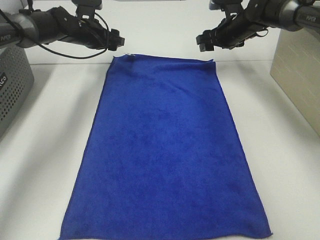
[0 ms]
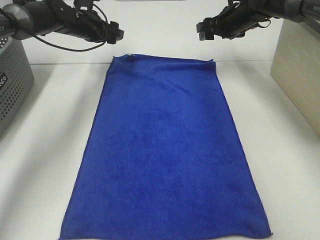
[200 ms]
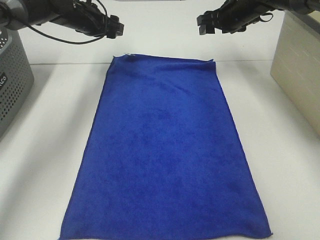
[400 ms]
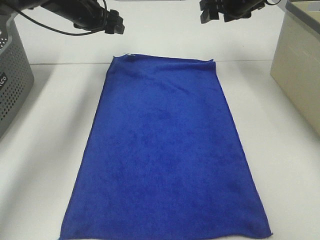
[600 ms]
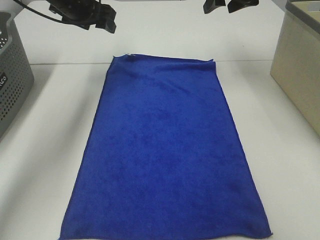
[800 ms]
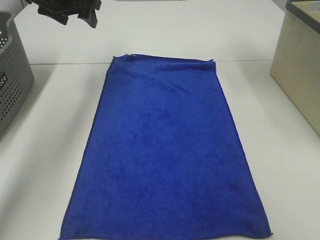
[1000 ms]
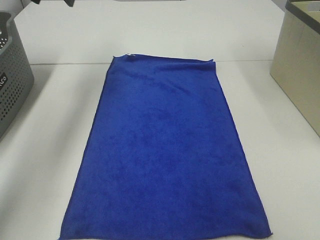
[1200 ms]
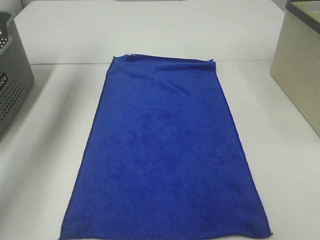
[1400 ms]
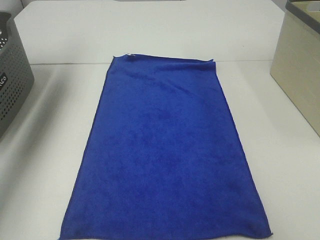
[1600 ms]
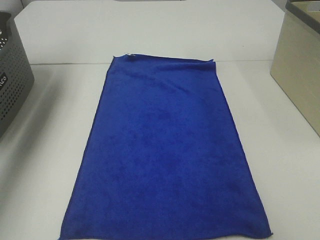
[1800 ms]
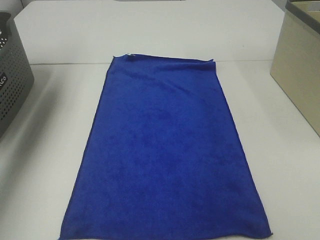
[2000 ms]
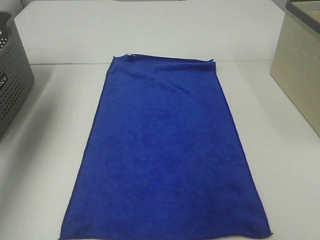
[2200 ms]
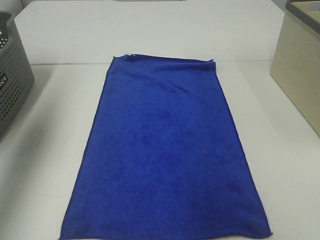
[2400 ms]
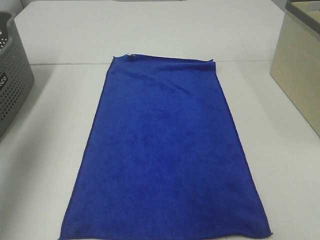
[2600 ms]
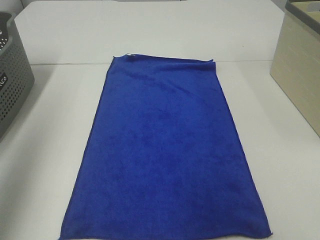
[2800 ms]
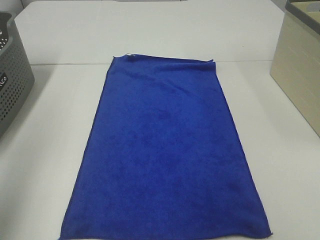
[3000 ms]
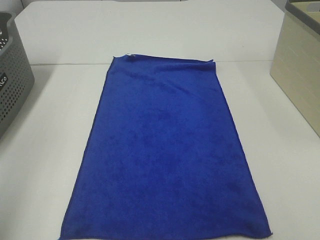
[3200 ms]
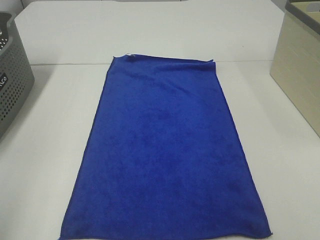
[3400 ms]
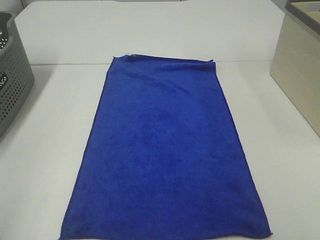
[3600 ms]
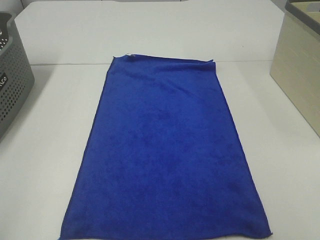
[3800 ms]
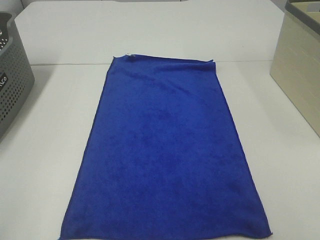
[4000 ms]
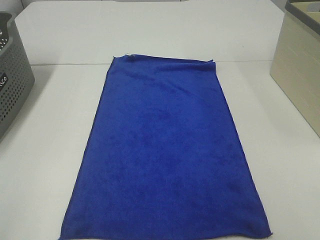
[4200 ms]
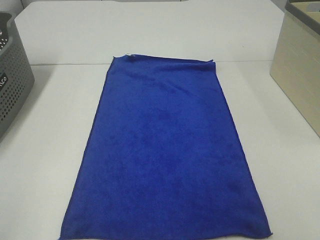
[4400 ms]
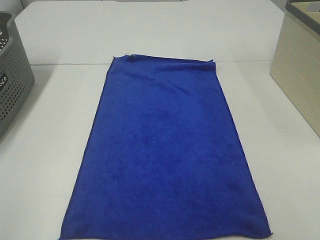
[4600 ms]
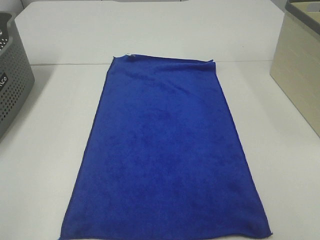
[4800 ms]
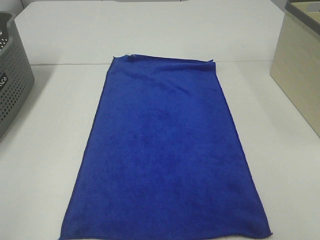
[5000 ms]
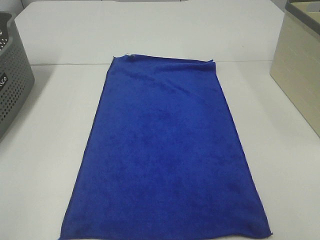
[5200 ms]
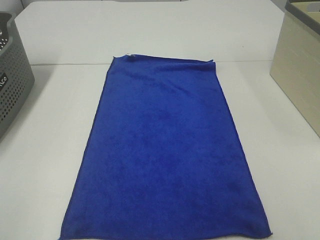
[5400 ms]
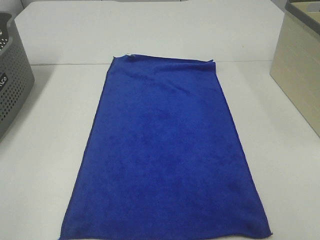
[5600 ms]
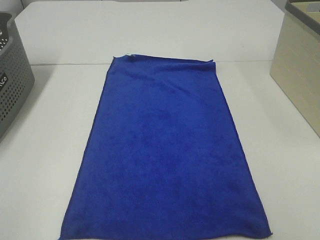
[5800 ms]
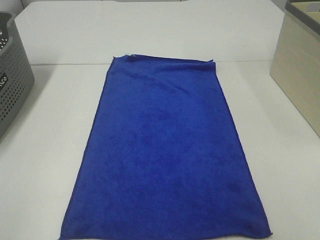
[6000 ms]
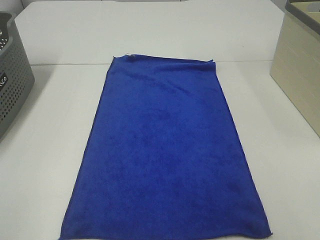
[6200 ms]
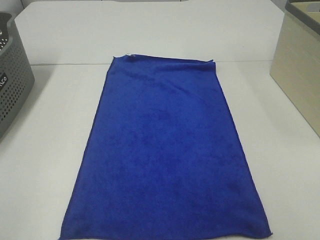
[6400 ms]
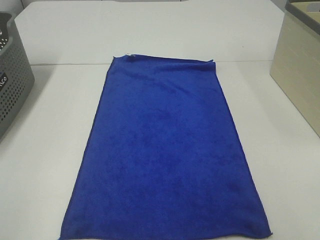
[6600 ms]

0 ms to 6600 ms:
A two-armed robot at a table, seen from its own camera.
Task of the whole recording: Remove the towel and place it.
0 ms to 1600 ms: The left gripper shifts roughly 30 cm upward, to the left and backward. The right gripper goes roughly 30 cm upward and backward.
1600 ms to 3200 ms: The left gripper shifts approximately 35 cm backward.
3200 ms to 5000 ms: The left gripper is displaced backward and downward by about 10 cm.
5000 ms to 6600 ms: Neither gripper changes place.

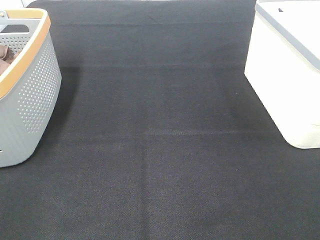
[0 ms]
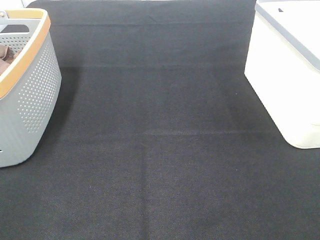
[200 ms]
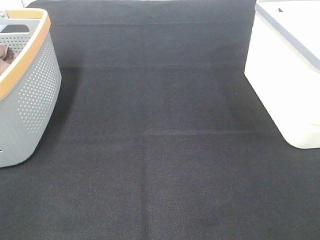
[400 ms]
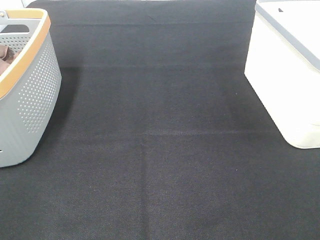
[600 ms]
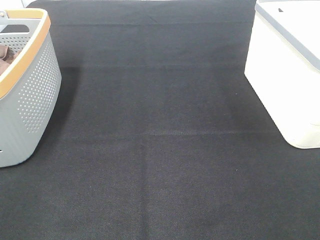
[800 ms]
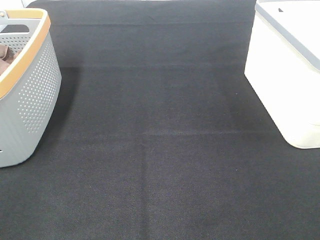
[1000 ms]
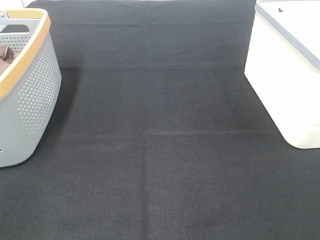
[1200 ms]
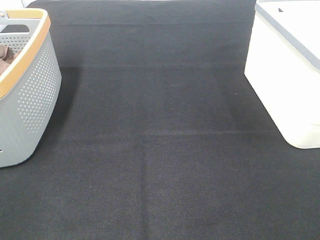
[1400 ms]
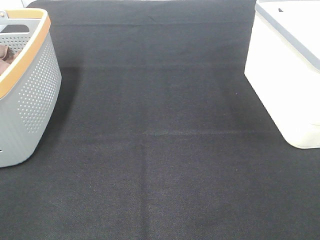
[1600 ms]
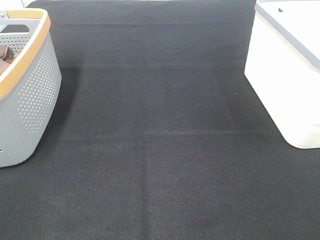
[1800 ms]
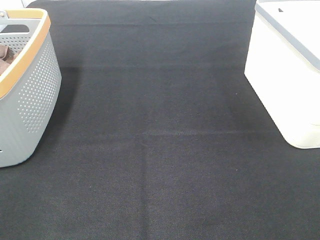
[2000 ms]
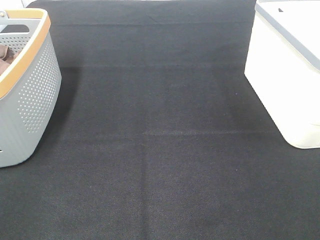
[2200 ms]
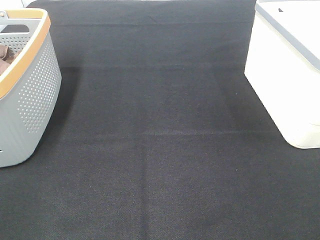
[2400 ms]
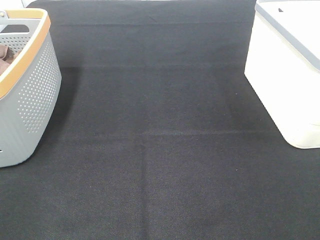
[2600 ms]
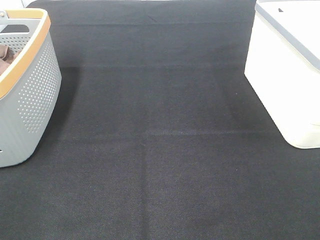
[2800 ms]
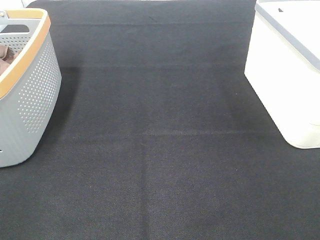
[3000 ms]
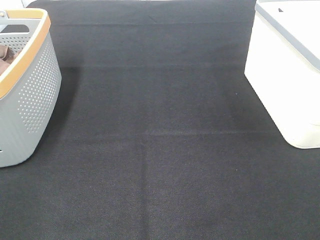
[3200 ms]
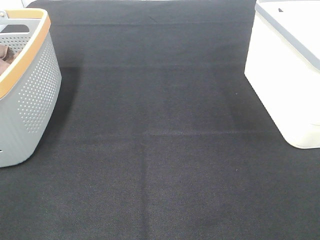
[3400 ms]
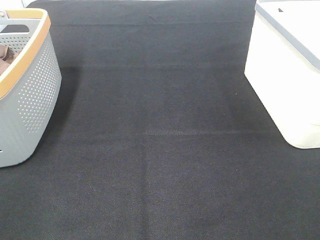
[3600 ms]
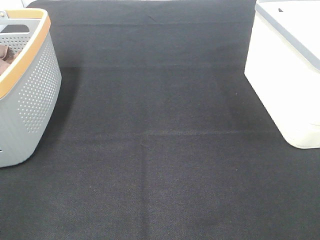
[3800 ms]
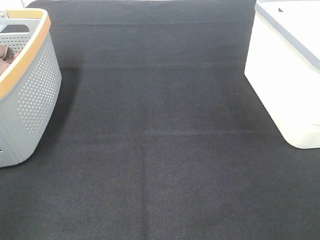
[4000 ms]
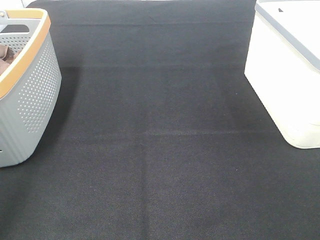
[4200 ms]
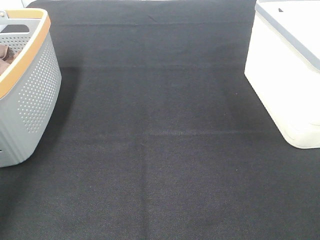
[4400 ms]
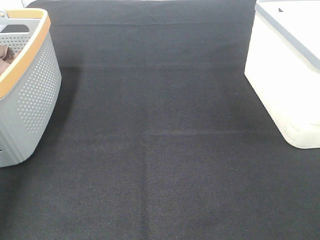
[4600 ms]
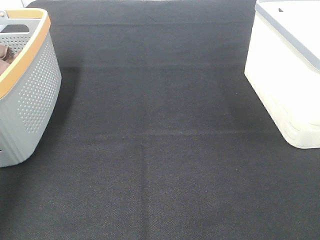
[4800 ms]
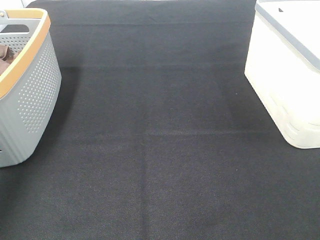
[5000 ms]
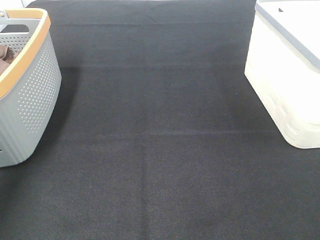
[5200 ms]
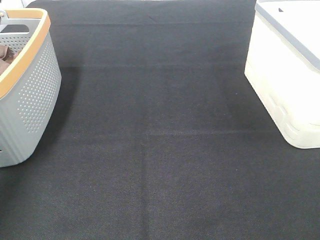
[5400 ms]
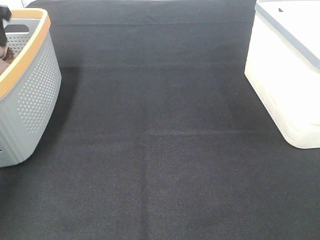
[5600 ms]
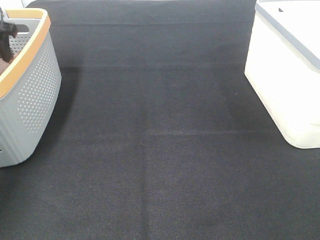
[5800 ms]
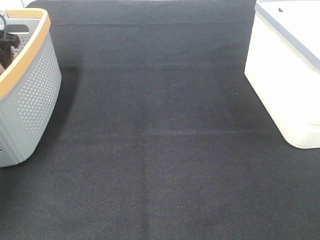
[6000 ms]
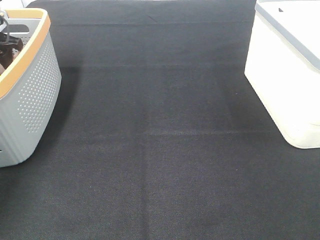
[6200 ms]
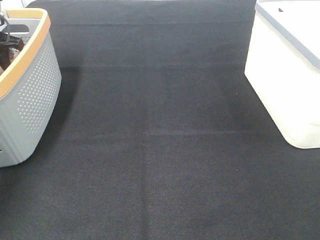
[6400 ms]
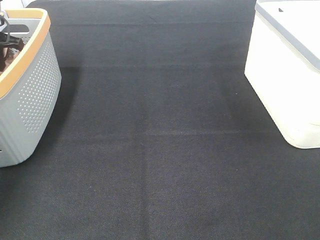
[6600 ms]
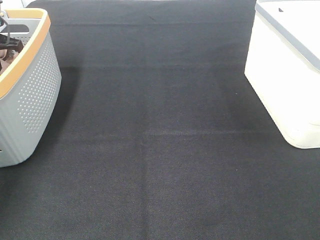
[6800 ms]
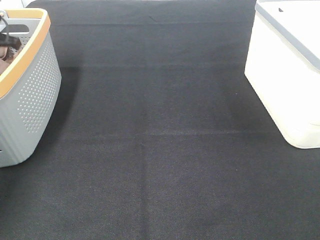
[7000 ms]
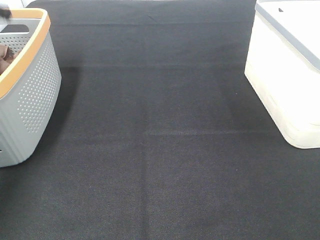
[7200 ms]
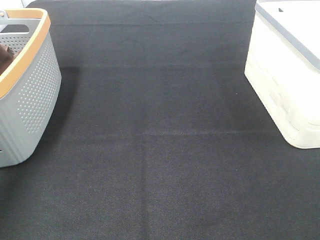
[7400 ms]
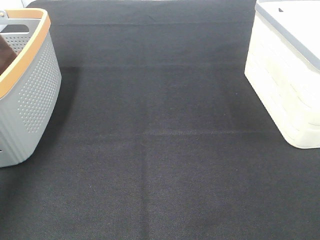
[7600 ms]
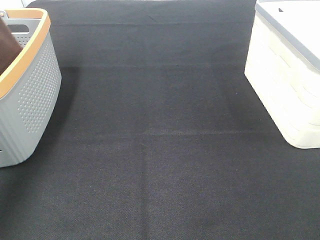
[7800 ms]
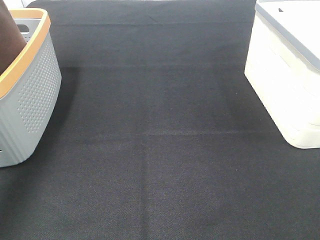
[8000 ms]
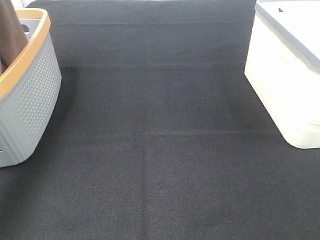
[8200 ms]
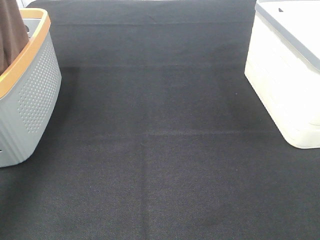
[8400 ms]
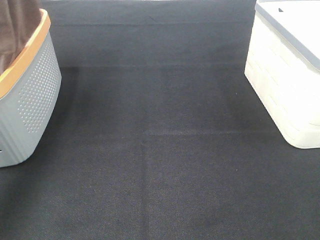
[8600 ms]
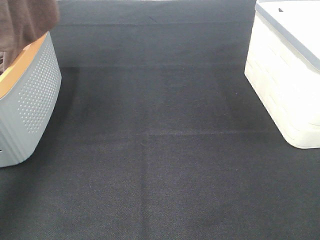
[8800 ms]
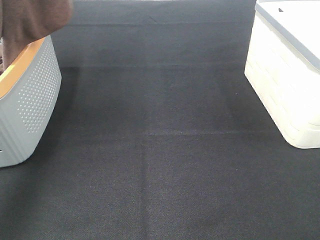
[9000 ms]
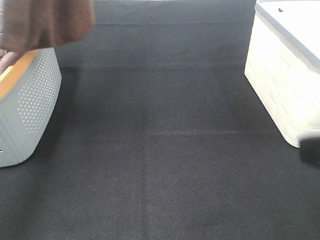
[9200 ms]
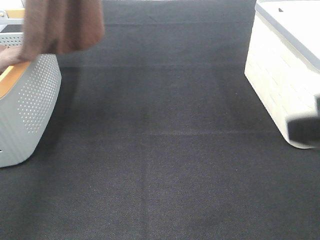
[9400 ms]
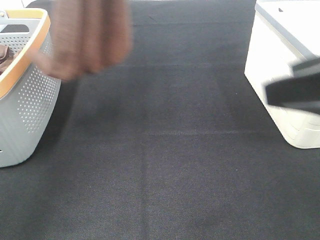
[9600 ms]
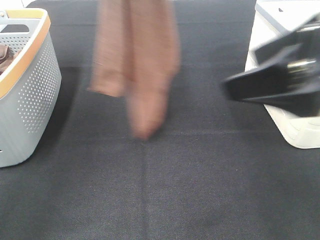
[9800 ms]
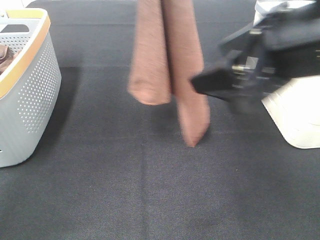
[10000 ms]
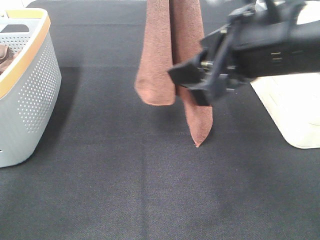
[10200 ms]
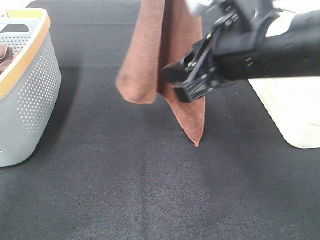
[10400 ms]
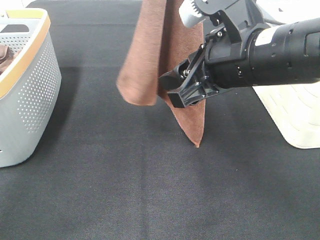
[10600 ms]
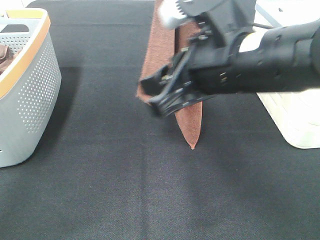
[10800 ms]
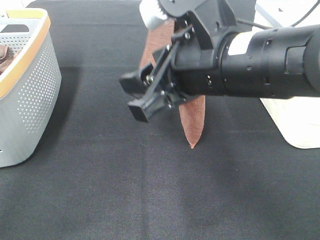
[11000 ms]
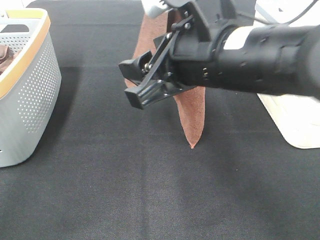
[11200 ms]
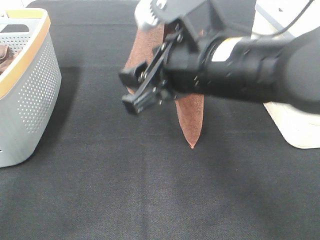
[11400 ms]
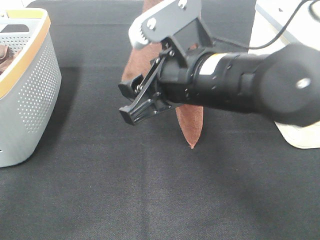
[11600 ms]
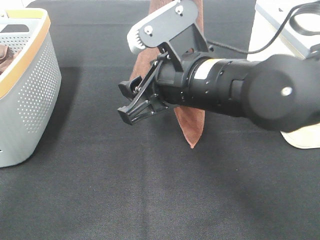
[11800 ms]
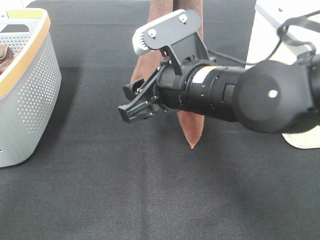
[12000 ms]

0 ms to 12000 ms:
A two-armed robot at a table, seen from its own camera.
Task of the whole recording: Remove the towel and place it.
0 ms to 3000 ms: Both grippers stay put.
3000 ms to 4400 ms: The left gripper shifts approximately 20 cm forward.
4400 ms to 6000 ms: The left gripper is displaced forward by approximately 25 cm.
6000 ms to 7600 ms: The left gripper travels upward and backward by approximately 25 cm, and closes up.
7600 ms to 9000 ms: The left gripper travels upward, to the right and backward by some 15 cm.
9000 ms to 10400 ms: The left gripper moves to the right and downward, roughly 20 cm. Meanwhile the right gripper moves forward and to the left, about 25 cm.
10400 ms to 12000 ms: The right gripper shifts approximately 10 cm downward and to the left.

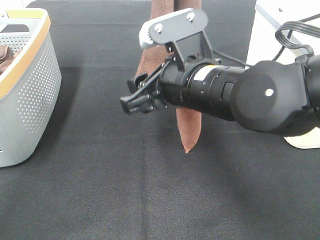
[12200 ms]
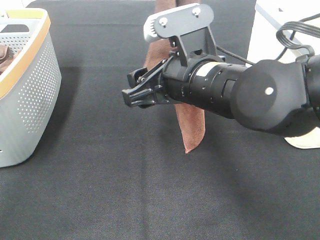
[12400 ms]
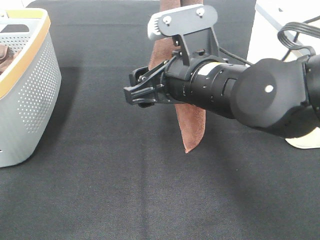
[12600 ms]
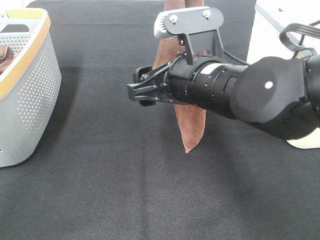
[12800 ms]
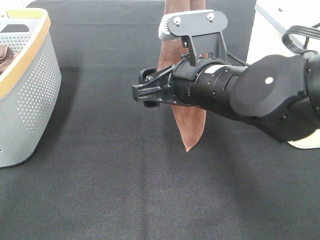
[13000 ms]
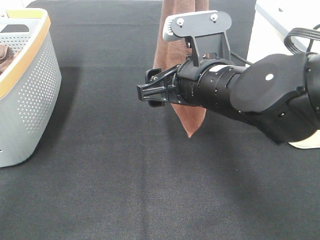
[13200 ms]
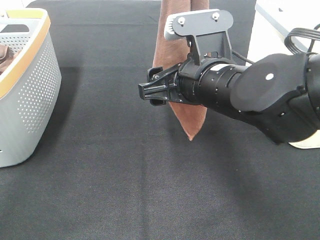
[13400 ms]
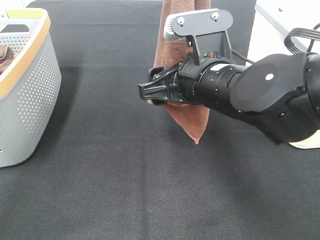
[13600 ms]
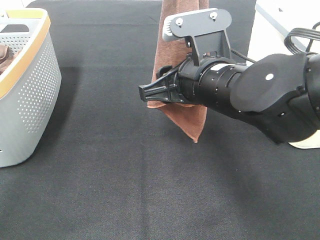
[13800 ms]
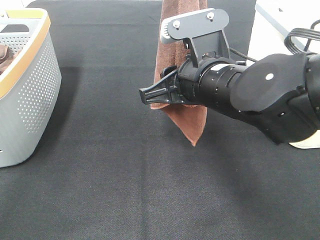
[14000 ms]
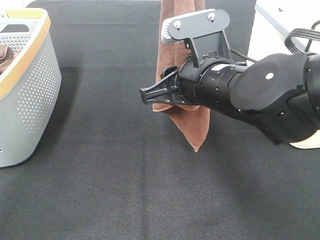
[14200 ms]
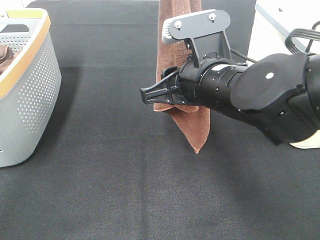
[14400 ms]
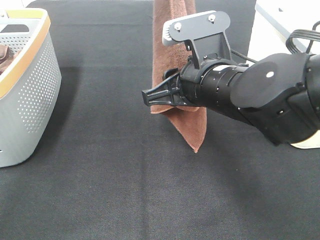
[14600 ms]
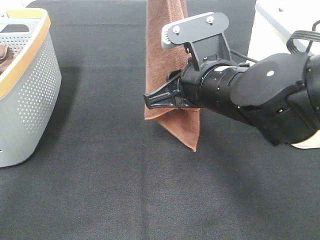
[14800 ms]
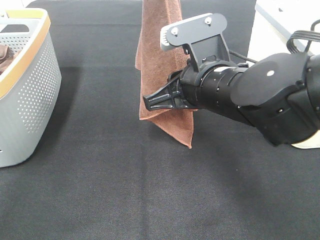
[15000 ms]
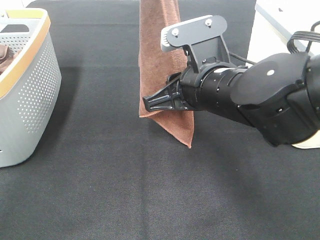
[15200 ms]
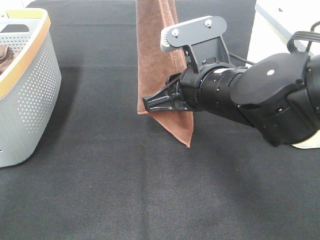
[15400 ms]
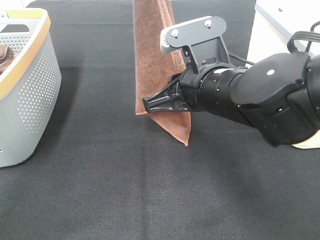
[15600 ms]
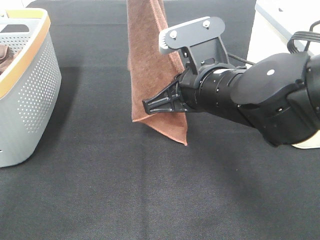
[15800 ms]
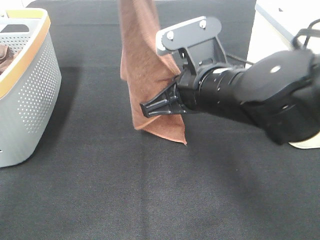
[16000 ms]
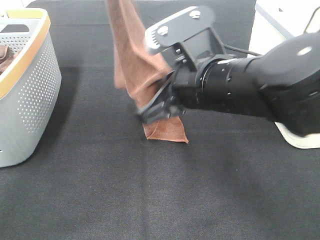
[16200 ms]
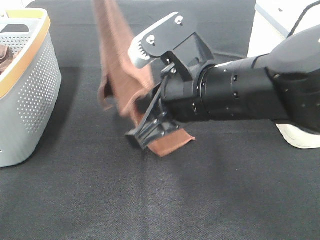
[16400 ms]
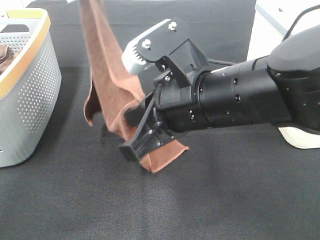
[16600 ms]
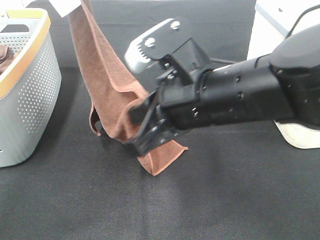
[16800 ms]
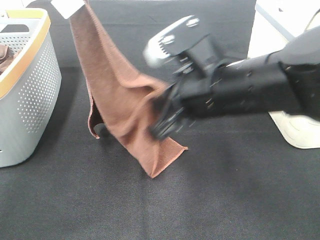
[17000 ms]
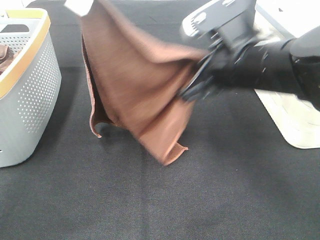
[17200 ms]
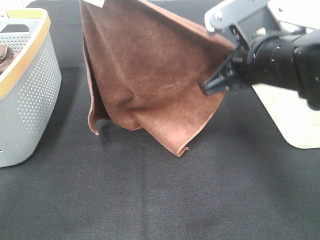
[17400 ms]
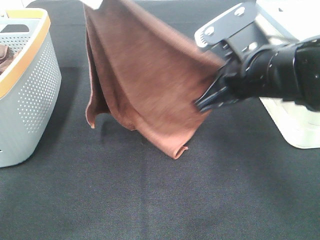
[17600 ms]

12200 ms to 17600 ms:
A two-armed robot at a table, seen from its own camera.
Task of the whole recording: Remove the towel and place it.
Step, 12200 ms to 15800 ms: Right hand: grab a corner of the brown towel and straighten it.
12200 ms to 13600 ms: The grippers stay close to where they were, moving slightly.
13600 ms to 15000 ms: The right gripper closes up.
16200 ms to 17600 ms: The right gripper moves to the right, roughly 5 cm.
